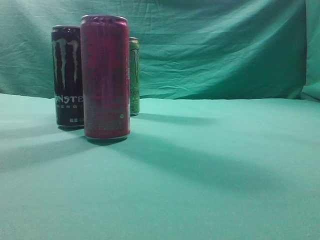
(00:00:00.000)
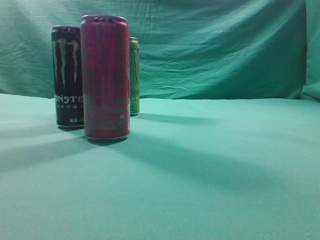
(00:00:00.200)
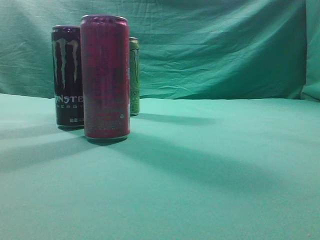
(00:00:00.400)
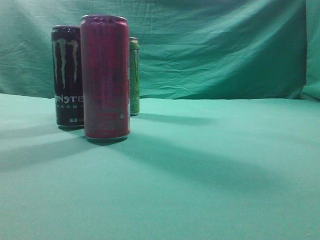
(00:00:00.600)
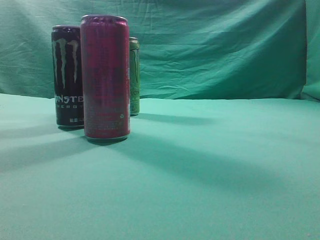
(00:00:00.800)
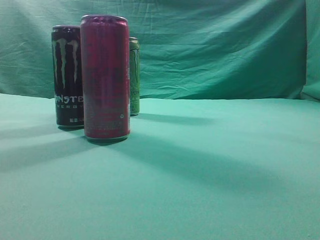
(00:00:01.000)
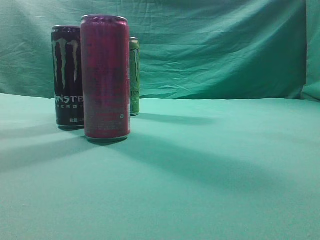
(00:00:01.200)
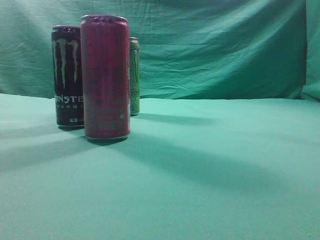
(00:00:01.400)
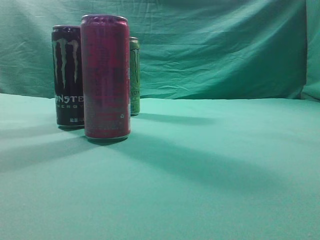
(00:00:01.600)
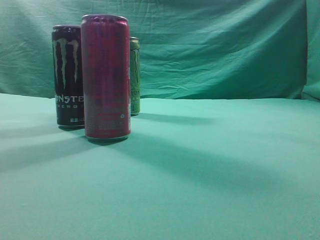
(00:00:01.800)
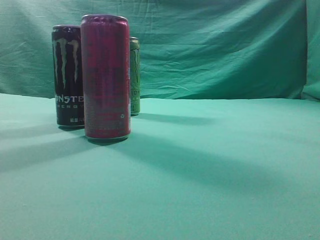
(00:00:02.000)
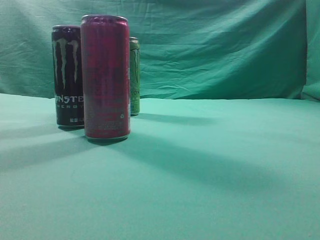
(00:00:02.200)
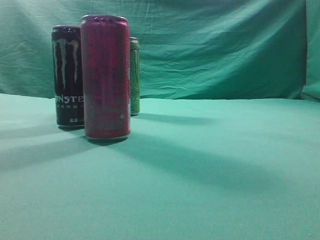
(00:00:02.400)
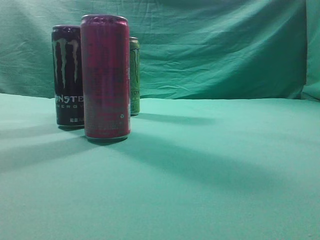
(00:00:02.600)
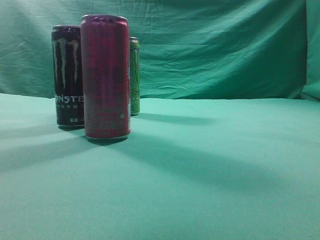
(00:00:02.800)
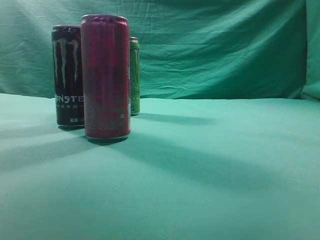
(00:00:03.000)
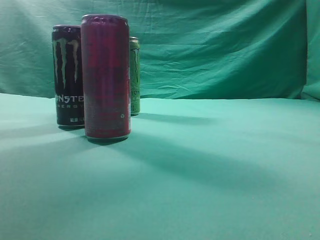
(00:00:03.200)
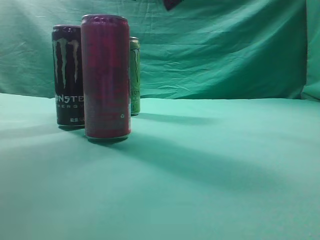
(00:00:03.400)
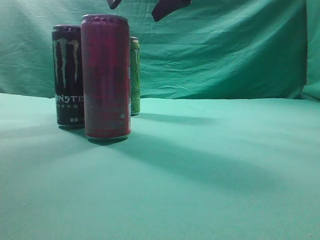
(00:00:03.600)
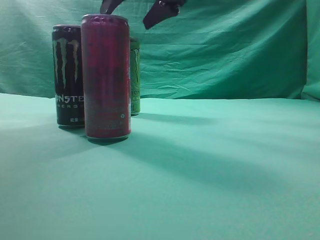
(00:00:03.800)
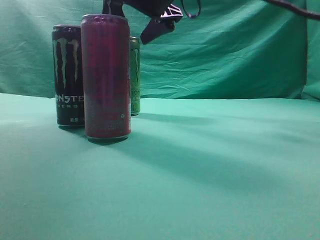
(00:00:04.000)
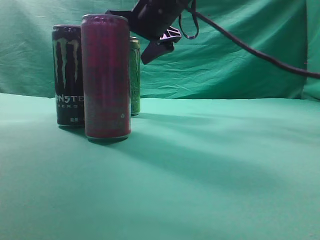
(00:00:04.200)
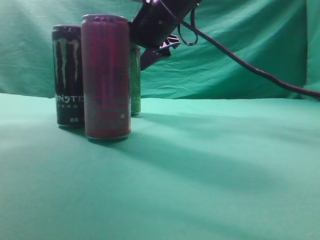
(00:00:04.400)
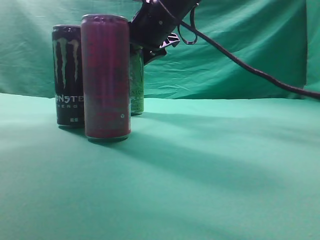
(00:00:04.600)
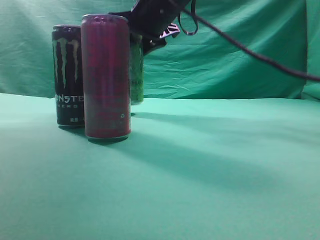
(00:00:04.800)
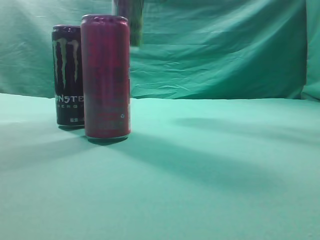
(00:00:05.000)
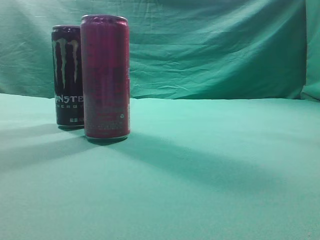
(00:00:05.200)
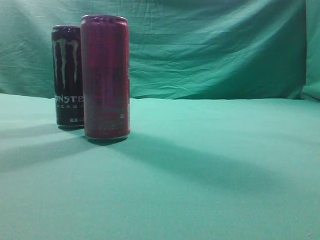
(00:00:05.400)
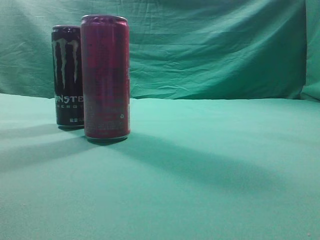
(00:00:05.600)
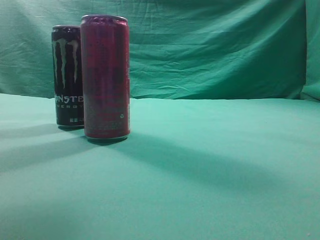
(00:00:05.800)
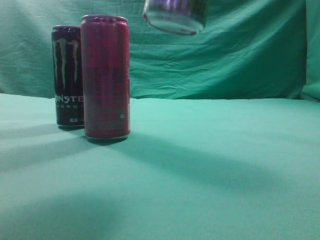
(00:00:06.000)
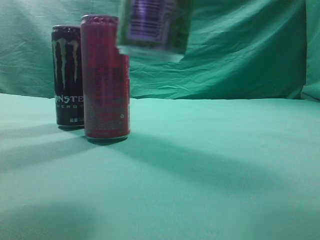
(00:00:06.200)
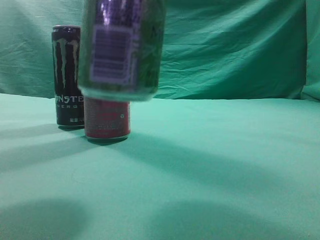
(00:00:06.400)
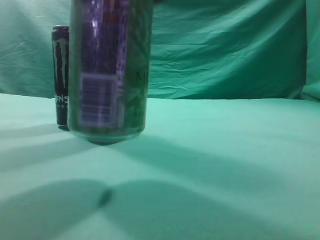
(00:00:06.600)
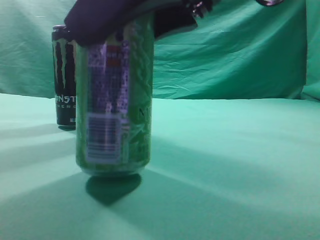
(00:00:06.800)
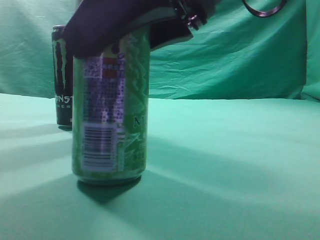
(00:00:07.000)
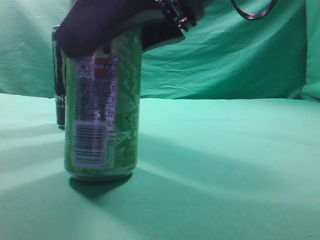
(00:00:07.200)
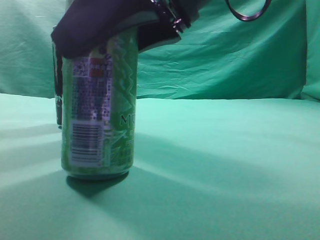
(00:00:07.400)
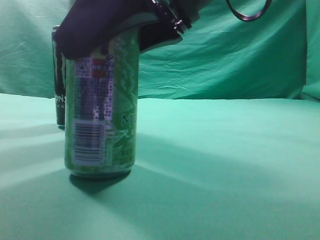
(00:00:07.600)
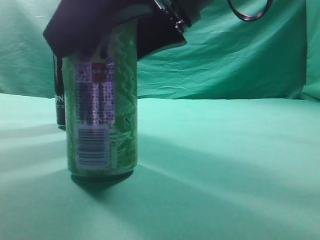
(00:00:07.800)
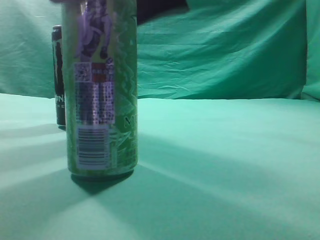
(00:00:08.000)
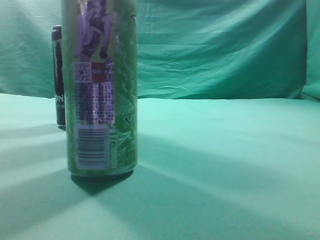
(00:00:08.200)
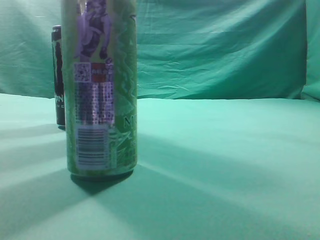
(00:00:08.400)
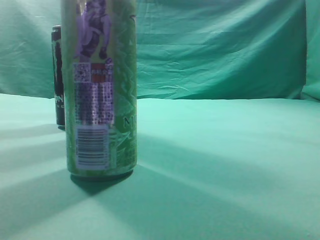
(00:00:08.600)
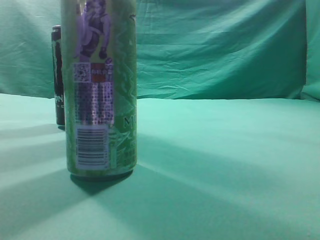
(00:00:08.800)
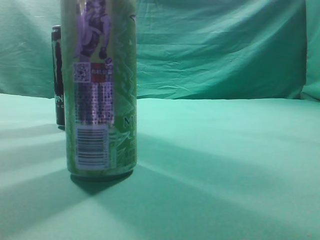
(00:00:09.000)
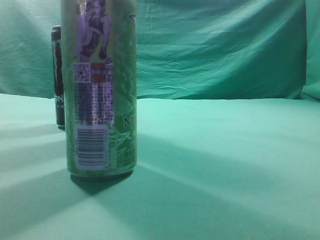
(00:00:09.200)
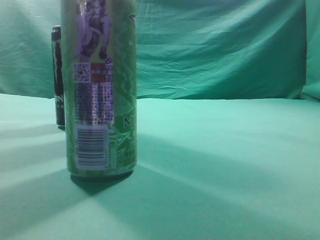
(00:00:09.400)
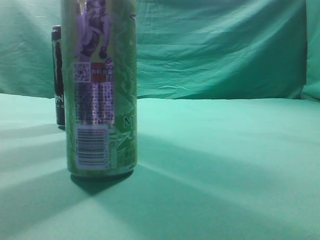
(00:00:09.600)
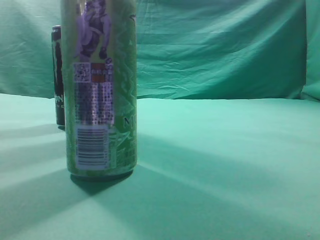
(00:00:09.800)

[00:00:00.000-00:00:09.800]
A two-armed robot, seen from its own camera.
Task of the whole recording: move one drink among three beverages.
Step, 00:00:00.000 to 00:00:05.200: Grasp the beverage bottle placed at the back of the desk.
Step, 00:00:05.400 to 00:00:09.000: Place the beverage bottle to the front of the table.
00:00:02.800 to 00:00:04.200: The right gripper goes about 30 cm forward, to the left and downward, and opens its fingers.
00:00:04.200 to 00:00:05.600: The right gripper is displaced upward, backward and to the right by some 30 cm, and closes its fingers.
00:00:05.600 to 00:00:07.000: The right gripper heads downward, covering some 20 cm.
00:00:07.000 to 00:00:08.400: The right gripper goes some 15 cm upward.
